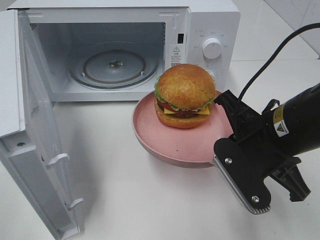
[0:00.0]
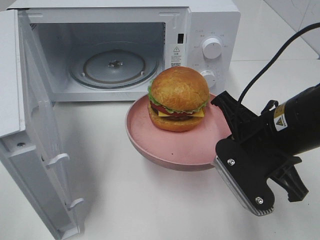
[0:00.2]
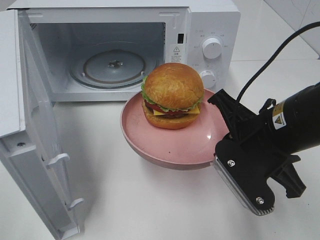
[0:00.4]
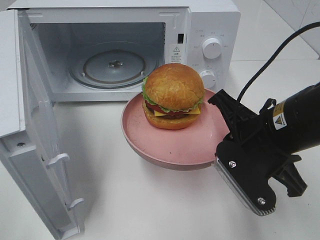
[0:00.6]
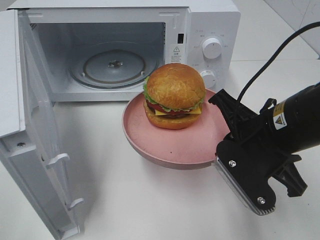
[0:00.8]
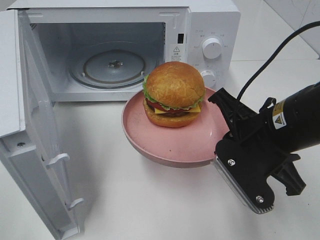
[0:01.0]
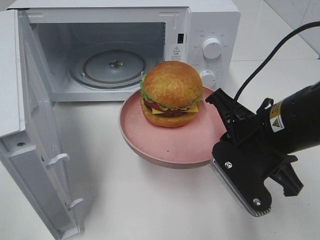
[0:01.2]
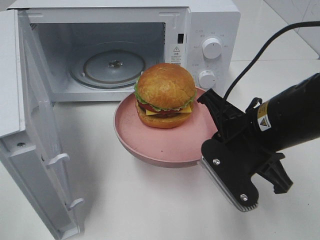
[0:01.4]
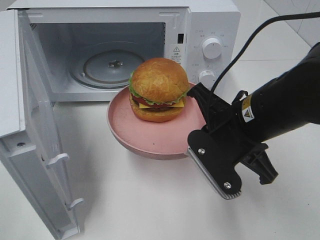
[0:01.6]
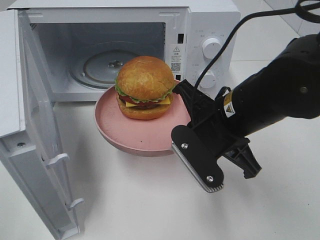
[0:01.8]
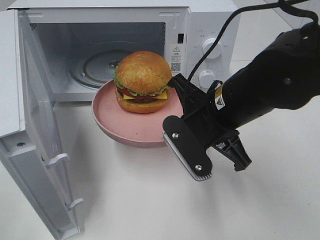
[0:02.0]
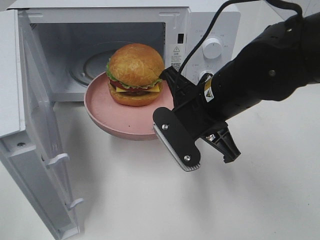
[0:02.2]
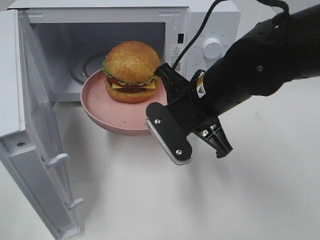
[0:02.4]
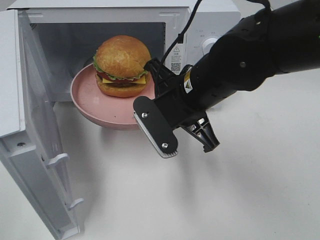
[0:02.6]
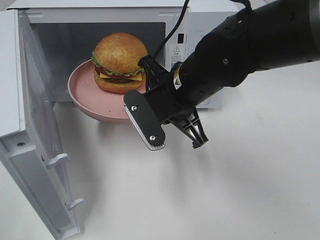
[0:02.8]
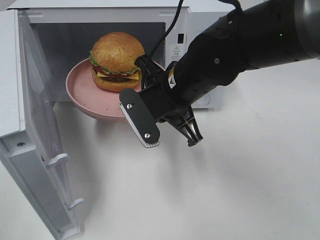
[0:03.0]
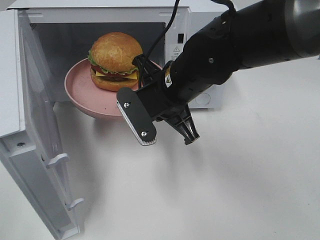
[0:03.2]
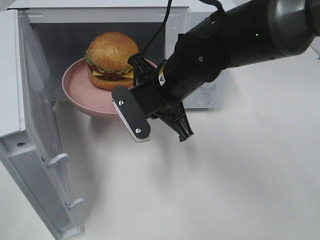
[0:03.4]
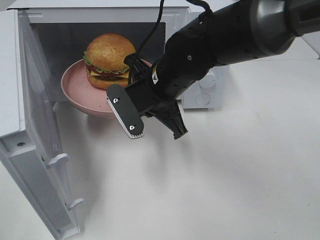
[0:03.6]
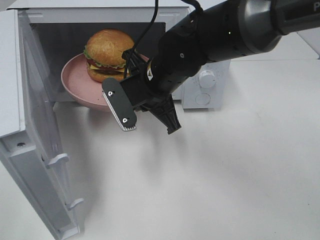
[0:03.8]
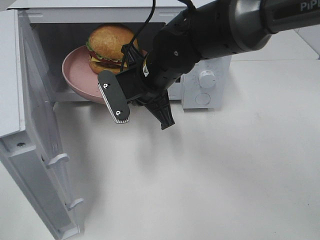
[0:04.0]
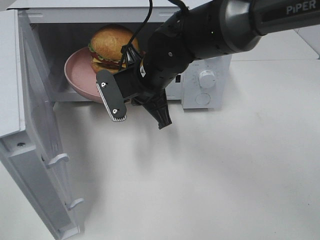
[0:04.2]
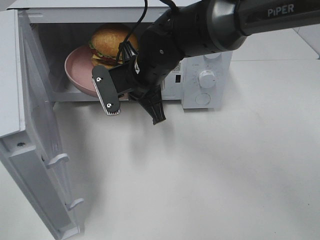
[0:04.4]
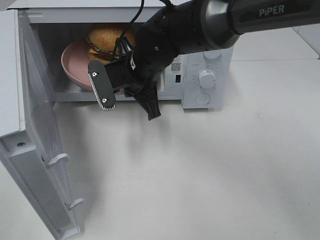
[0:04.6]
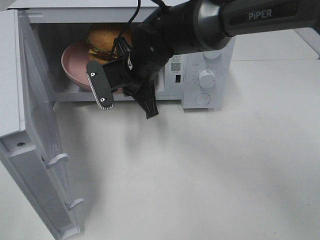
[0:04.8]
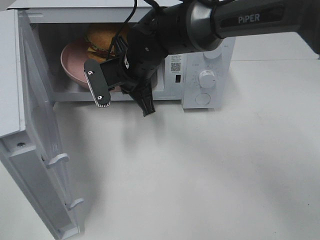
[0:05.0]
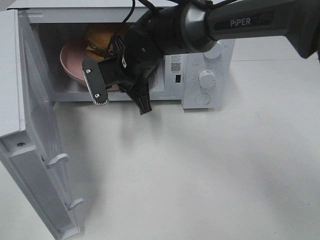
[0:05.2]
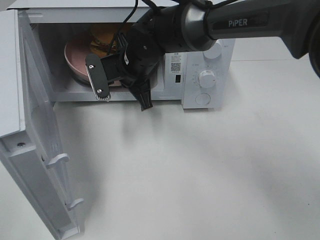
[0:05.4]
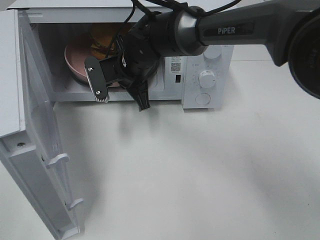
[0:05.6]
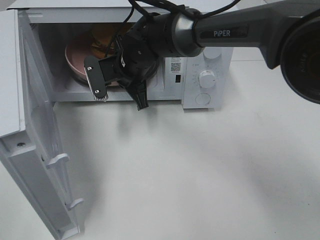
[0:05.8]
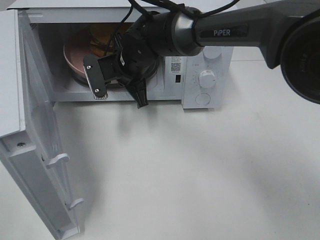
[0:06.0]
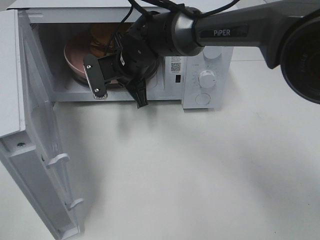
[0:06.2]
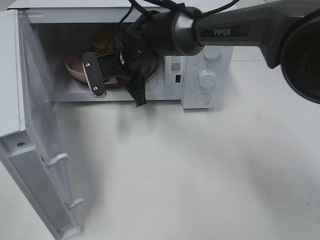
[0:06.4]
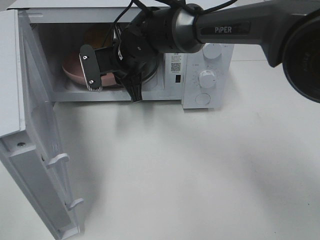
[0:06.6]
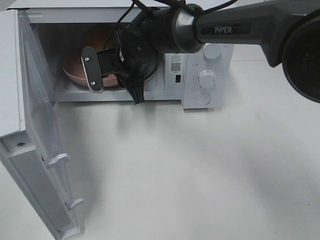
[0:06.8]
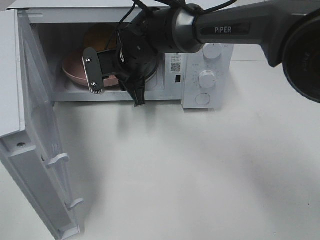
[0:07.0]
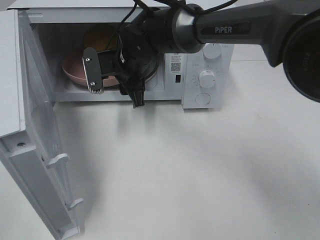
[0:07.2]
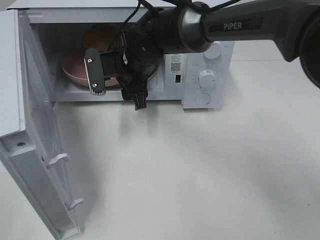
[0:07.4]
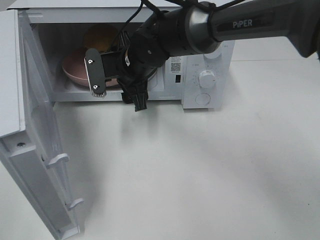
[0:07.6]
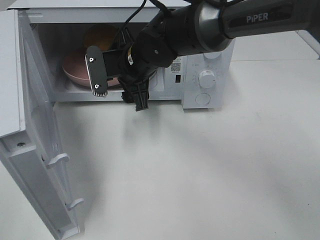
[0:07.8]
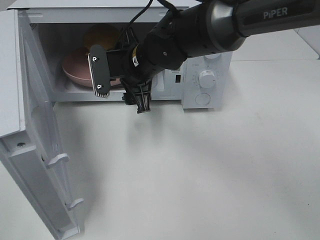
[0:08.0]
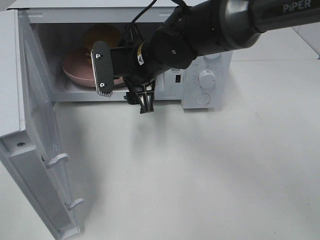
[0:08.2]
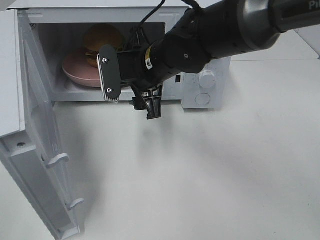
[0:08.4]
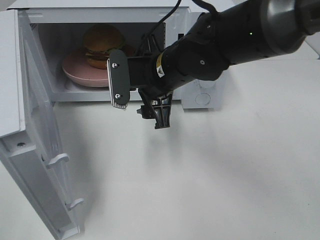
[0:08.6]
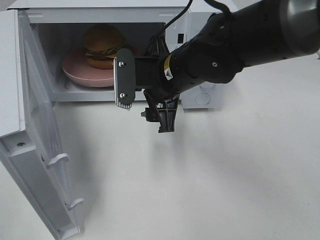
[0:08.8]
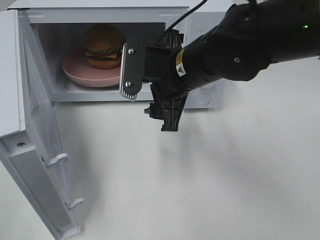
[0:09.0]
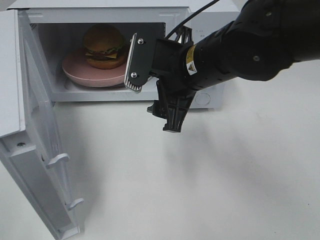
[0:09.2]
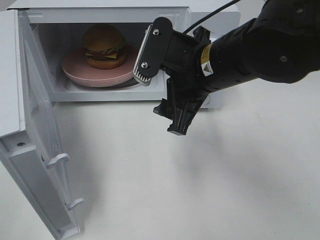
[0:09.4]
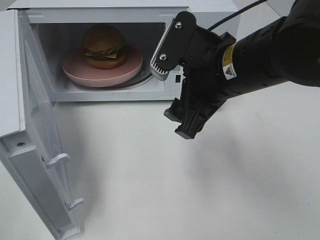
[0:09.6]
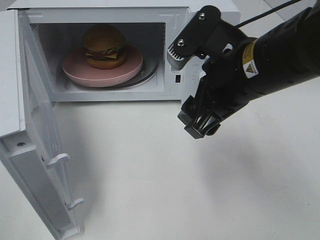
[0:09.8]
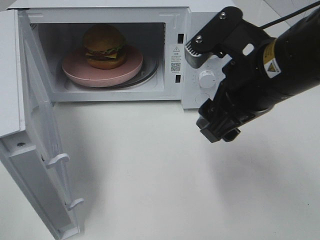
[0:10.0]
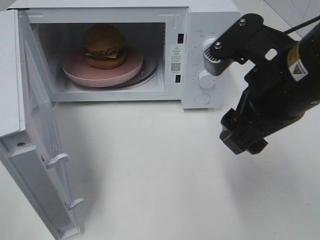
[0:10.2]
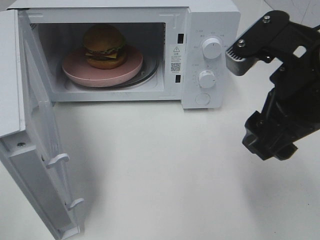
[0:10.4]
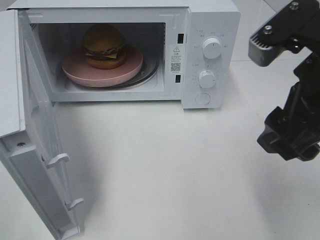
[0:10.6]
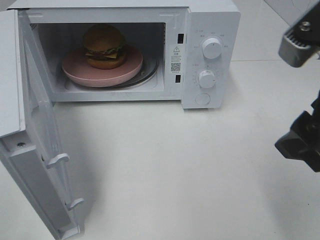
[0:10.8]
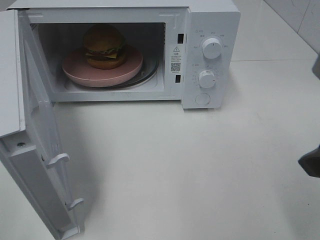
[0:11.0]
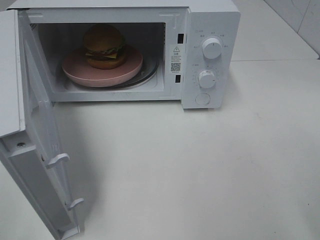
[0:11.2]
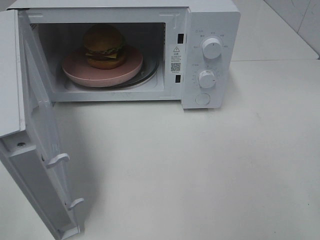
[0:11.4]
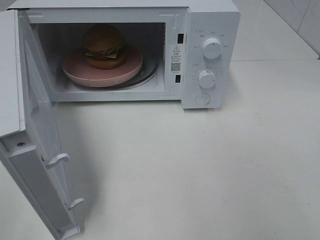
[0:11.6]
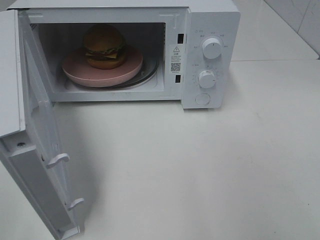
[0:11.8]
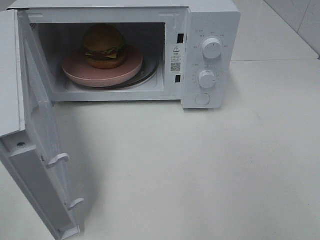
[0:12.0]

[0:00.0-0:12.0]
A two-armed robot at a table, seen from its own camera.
Task of the whole recording: Heat the burger.
Step, 0:00.0 to 0:06.6: Right hand: place the plate in the microwave.
0:01.6 to 0:03.0: The right gripper is displaced to the left and forward by approximately 10 cm.
0:03.0 to 0:04.4: The right gripper moves forward and to the left, about 10 cm.
0:04.4 to 0:06.0: The right gripper heads forward, covering some 5 cm.
0:06.0 to 0:07.6: The right gripper opens its fingers.
0:07.6 to 0:09.0: The right gripper shifts about 10 cm backward and to the right.
0:09.0 to 0:10.4: The right gripper shifts some 15 cm to the right, backward and upward.
0:10.4 to 0:12.0: The right gripper shifts about 20 cm backward and to the right.

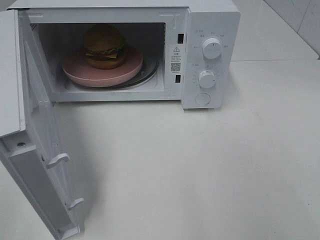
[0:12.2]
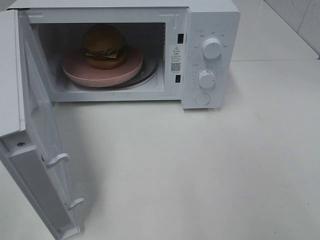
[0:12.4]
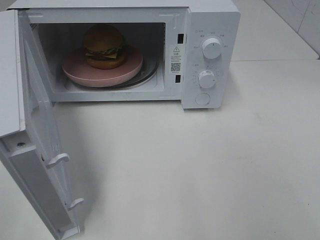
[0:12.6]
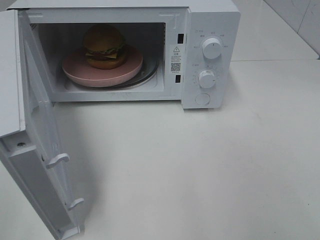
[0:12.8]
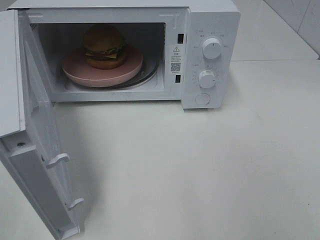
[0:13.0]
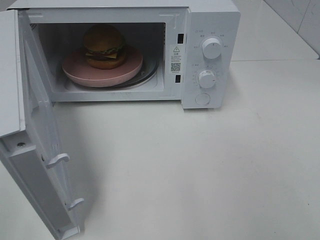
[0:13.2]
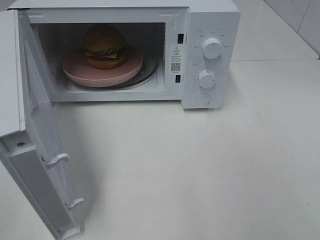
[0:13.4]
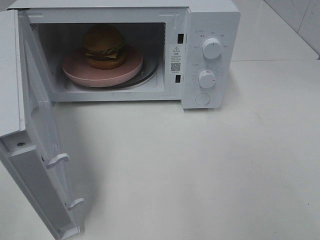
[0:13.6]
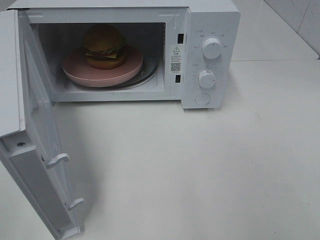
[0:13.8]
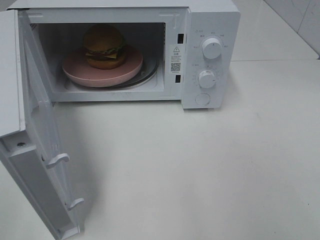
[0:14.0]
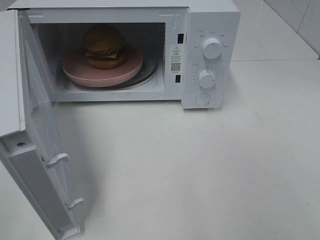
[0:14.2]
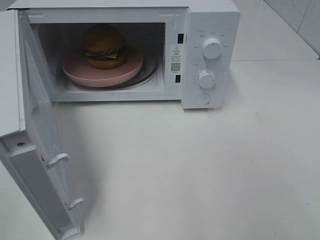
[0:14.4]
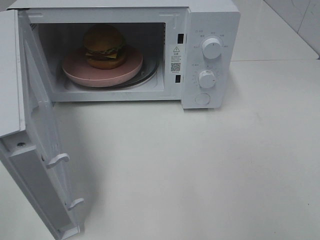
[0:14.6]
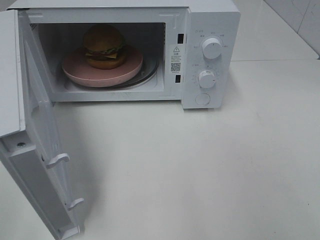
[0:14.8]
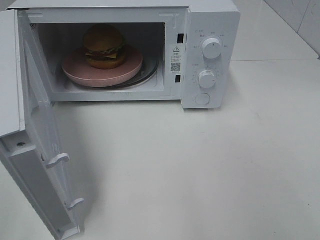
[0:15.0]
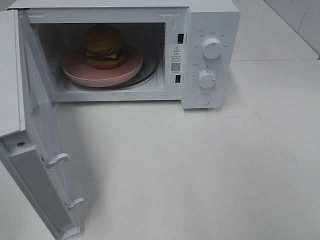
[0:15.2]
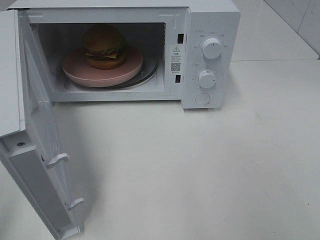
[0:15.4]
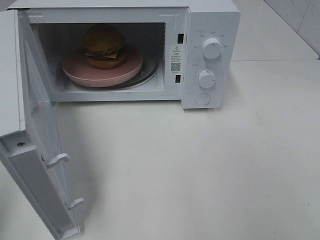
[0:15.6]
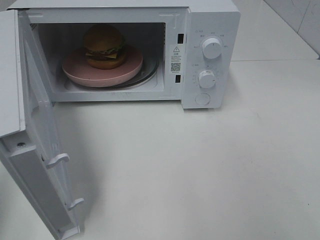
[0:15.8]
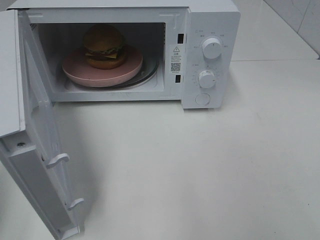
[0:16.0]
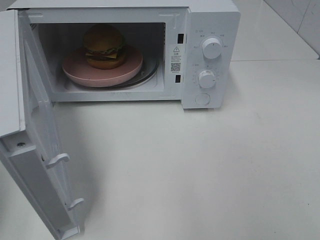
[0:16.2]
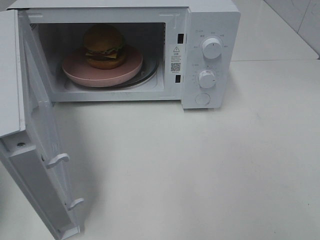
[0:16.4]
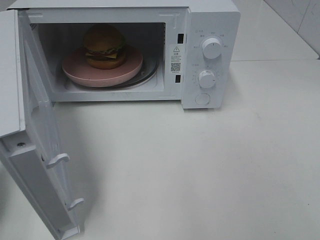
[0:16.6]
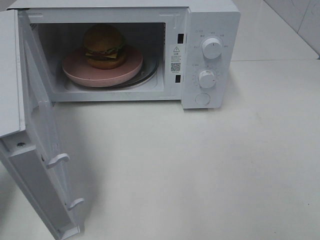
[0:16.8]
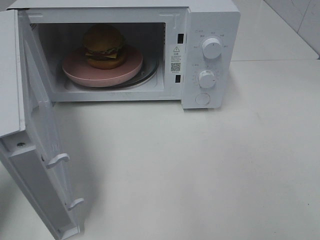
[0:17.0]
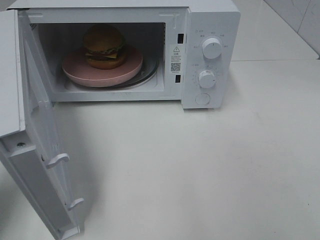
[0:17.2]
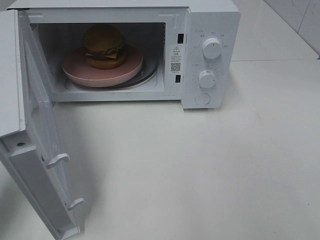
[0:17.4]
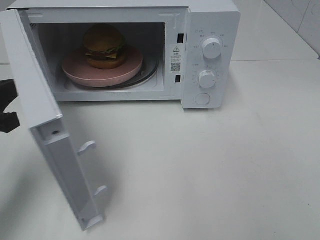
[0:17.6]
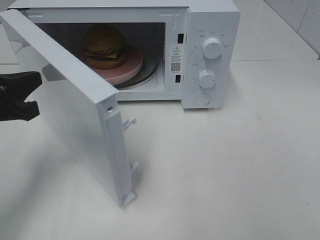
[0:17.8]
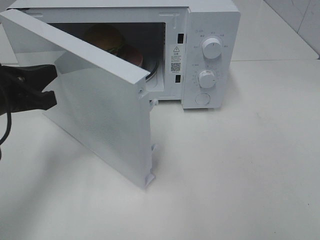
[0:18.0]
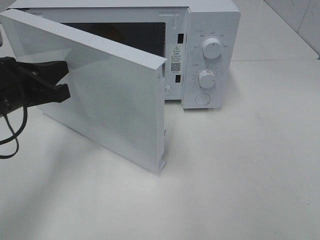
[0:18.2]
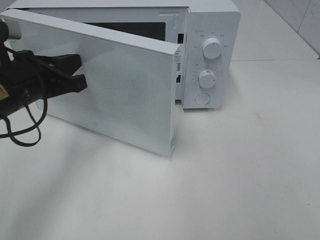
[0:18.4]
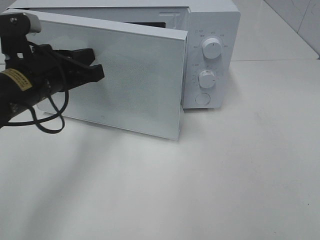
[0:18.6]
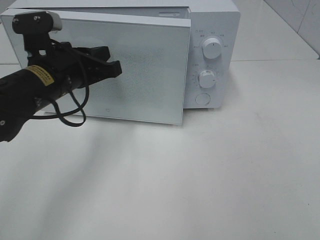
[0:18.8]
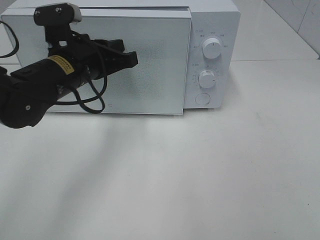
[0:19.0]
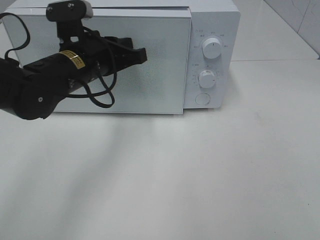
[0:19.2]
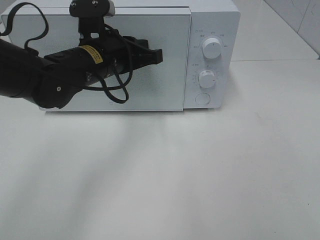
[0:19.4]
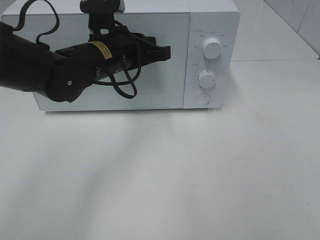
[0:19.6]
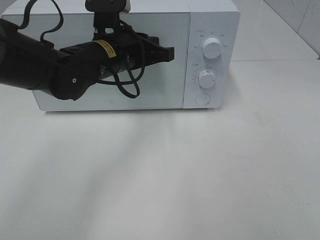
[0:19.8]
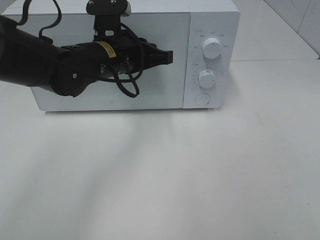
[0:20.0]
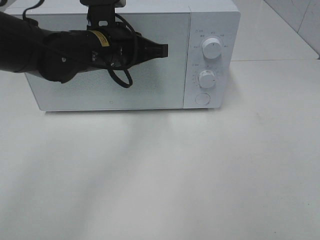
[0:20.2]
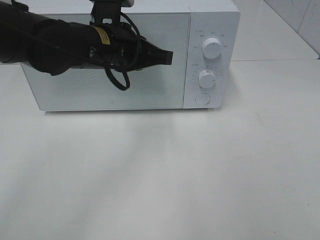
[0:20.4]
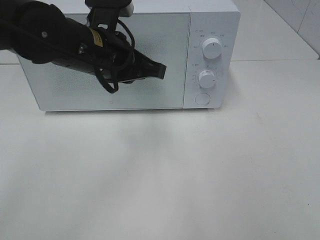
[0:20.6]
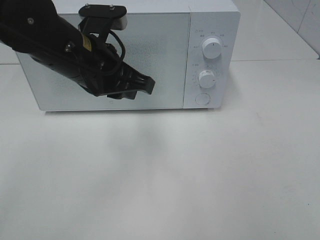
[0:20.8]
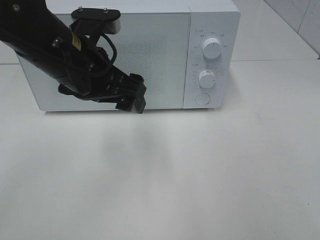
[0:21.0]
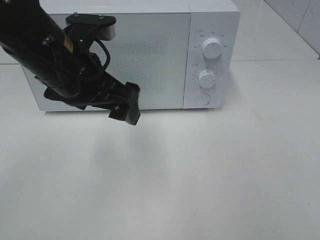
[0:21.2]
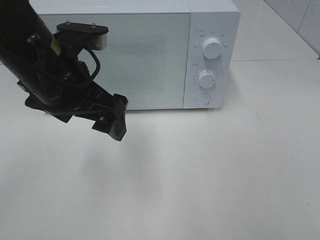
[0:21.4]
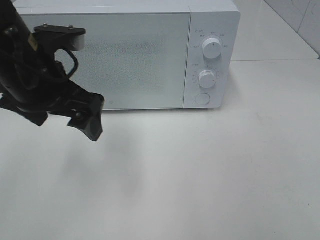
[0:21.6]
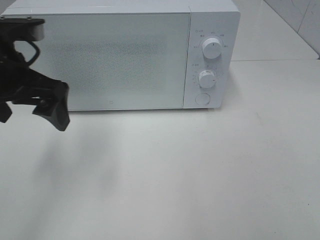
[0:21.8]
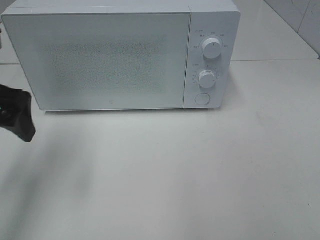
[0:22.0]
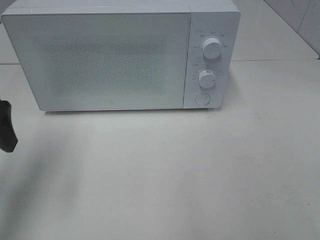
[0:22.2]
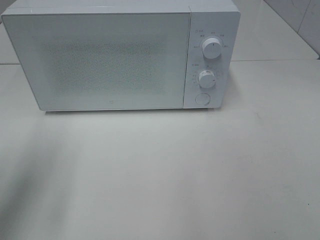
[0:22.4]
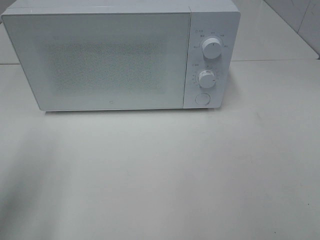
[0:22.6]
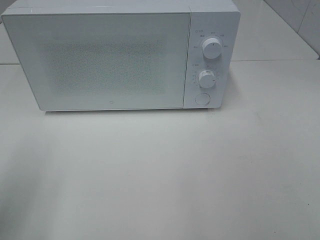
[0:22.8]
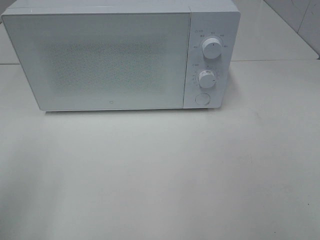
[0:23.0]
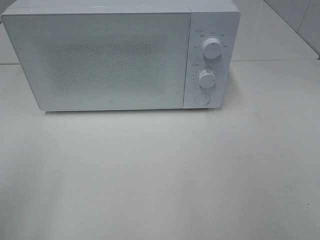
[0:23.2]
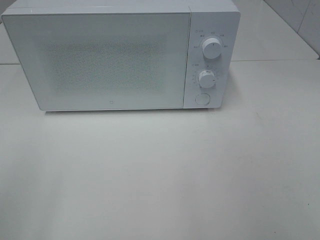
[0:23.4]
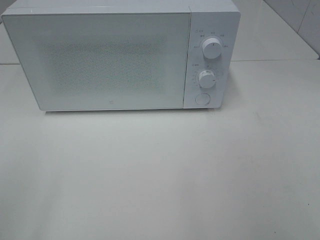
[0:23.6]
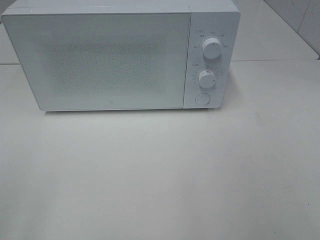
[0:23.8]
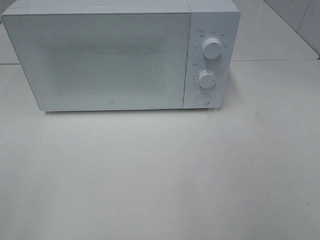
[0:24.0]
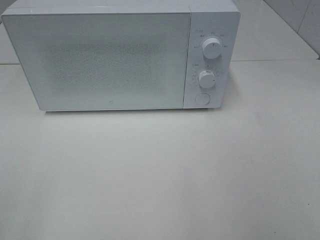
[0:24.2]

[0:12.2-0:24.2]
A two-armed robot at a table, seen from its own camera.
Task of the whole recording: Heat the burger.
Step, 0:12.2 to 0:20.2: Left hand: close the microwave door.
0:12.2 to 0:13.8: Both grippers stay put.
0:16.6 to 0:18.2: The left gripper goes some 15 cm to the right and forward.
0:18.2 to 0:19.8: The left gripper goes approximately 15 cm to the right and forward.
0:19.8 to 0:21.2: The left gripper goes roughly 10 cm backward, and opens up.
0:21.2 to 0:22.6: The left gripper moves to the left and backward, approximately 20 cm.
0:22.6 to 0:24.2: The left gripper goes some 15 cm backward.
